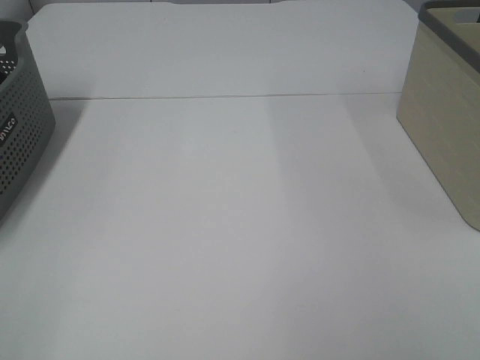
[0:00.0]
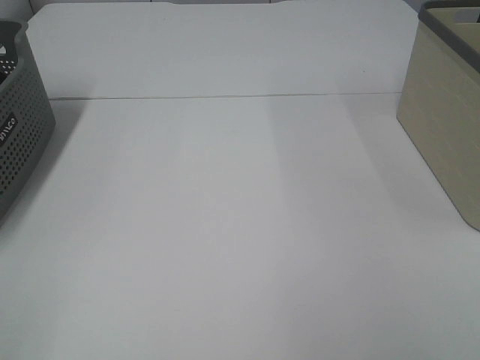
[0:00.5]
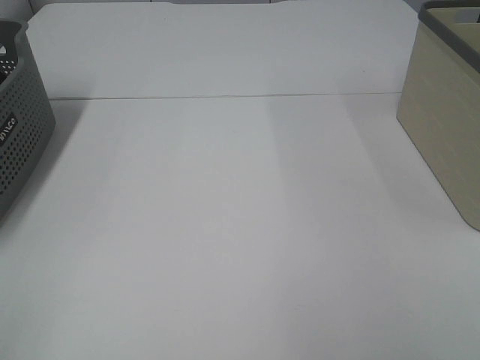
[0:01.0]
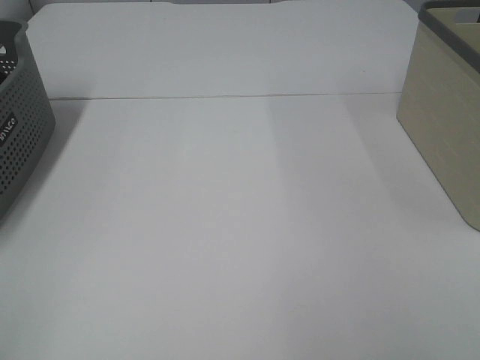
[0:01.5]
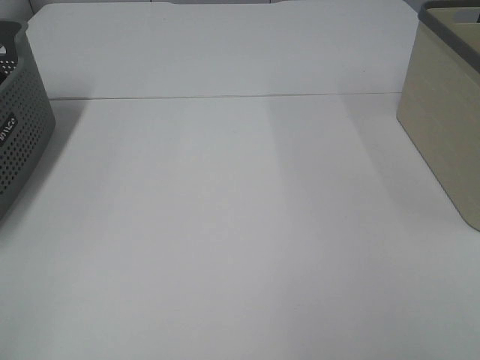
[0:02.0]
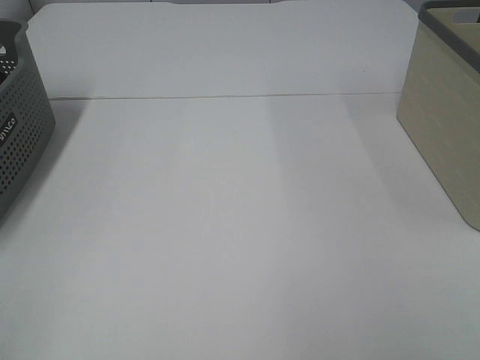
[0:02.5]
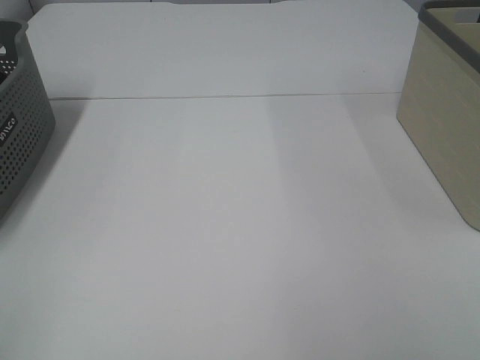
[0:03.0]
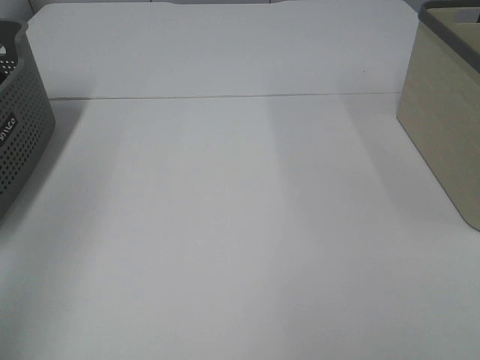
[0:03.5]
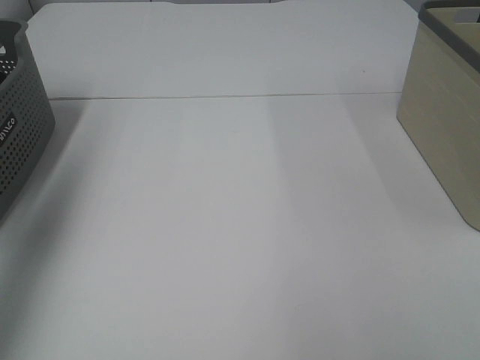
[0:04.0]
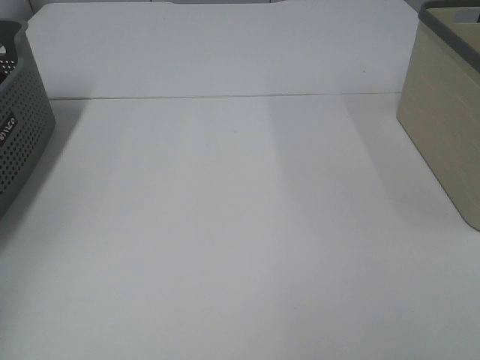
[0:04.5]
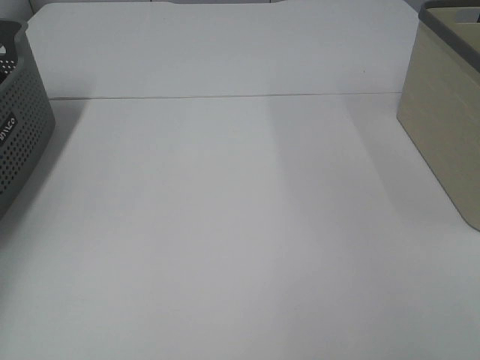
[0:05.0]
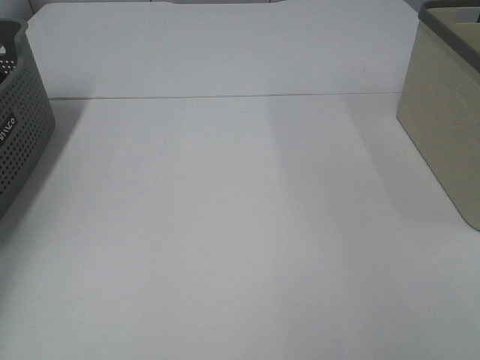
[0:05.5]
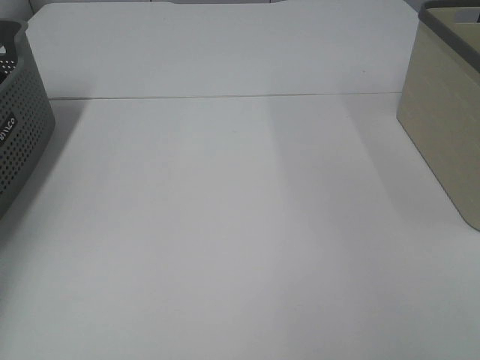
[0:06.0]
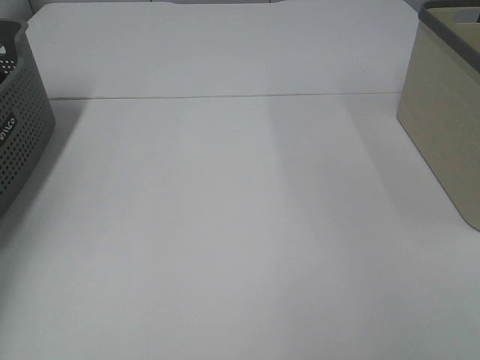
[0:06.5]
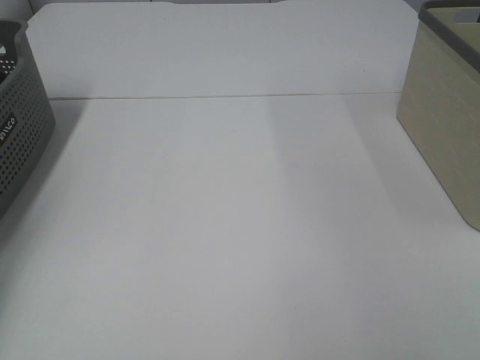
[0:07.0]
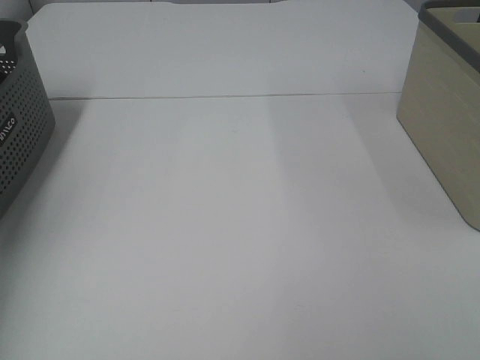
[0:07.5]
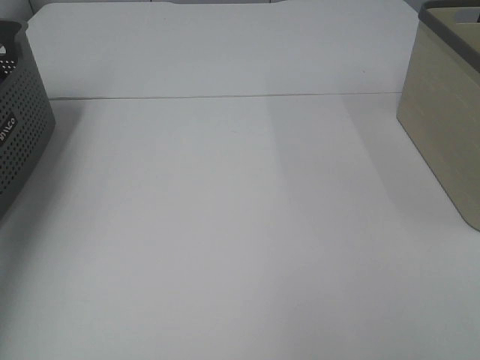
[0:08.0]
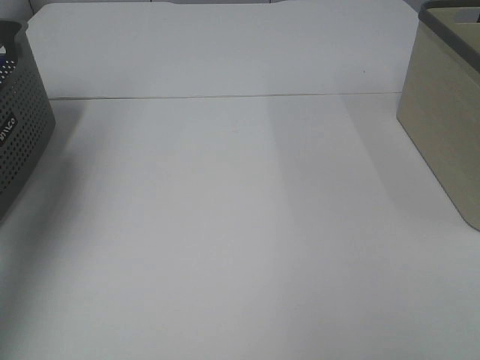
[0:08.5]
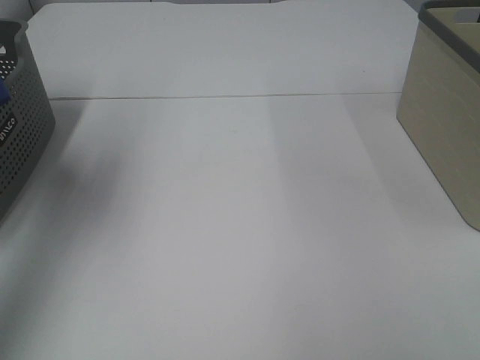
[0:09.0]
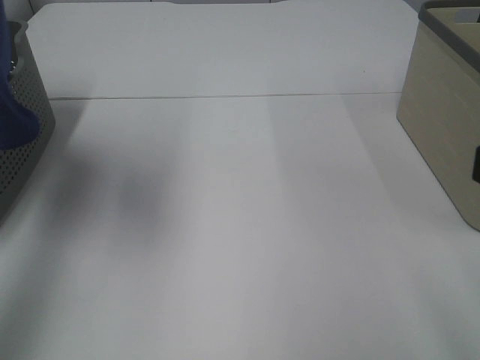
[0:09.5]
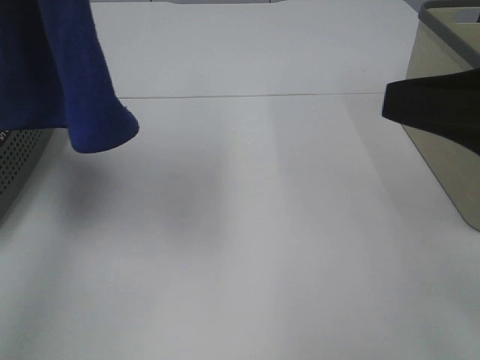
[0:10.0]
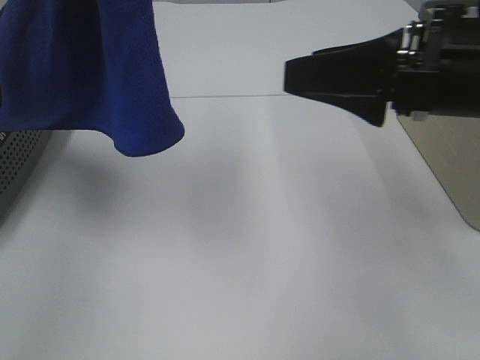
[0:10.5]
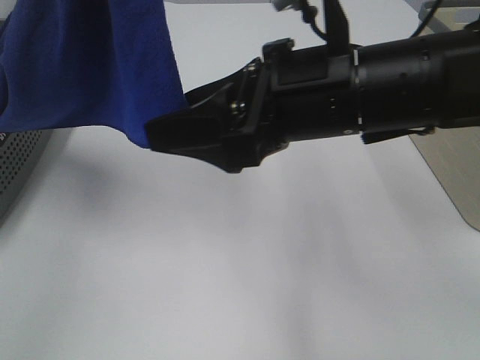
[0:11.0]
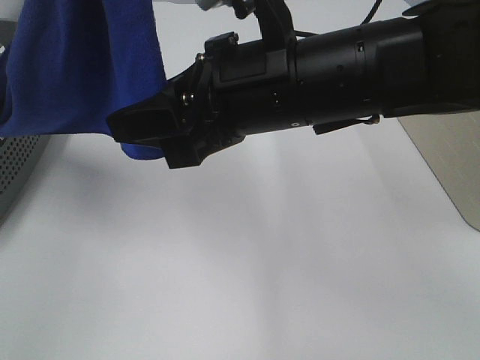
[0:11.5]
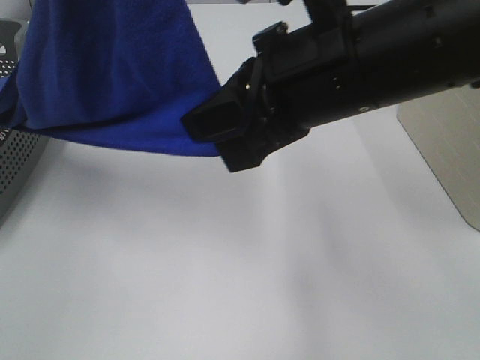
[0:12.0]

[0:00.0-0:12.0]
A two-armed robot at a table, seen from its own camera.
Task of the whole recording: Remove the towel and place it.
Step, 0:08.5 to 0:11.5: Right hand: grab a corner of the blue towel and straighten it.
0:00.0 to 0:02.0: Both grippers stay put.
0:02.0 to 0:04.0: The left gripper is displaced forward and upward by some 30 cm.
0:04.0 to 0:06.0: The left gripper is displaced downward and forward by some 30 cm, and closes up.
0:06.0 to 0:08.0: The left gripper travels upward by about 25 cm, and closes up.
0:08.0 to 0:10.0: The left gripper travels to the right and backward by some 20 cm. The right gripper heads forward and to the left, covering some 15 cm.
0:10.0 to 0:12.0: The right gripper shifts some 15 cm to the left and forward, and closes its fingers.

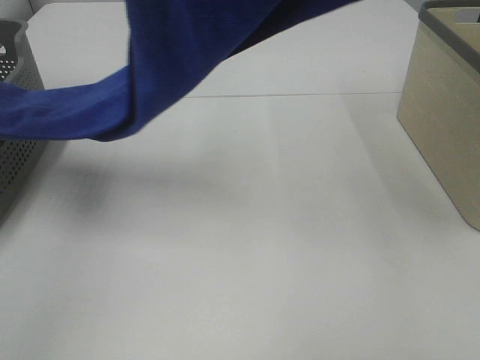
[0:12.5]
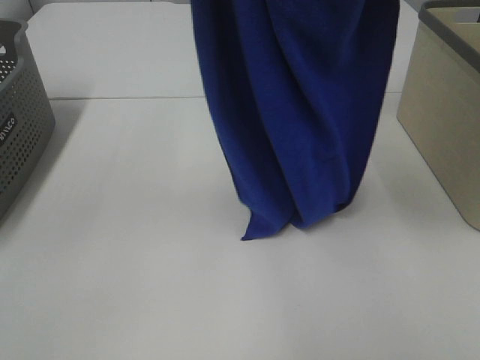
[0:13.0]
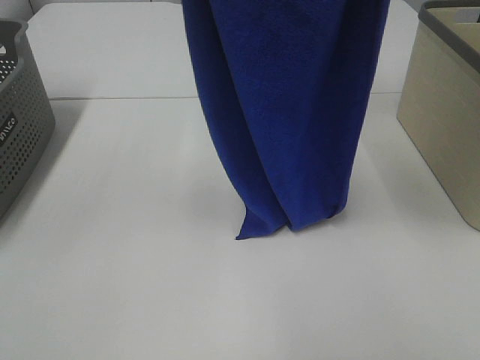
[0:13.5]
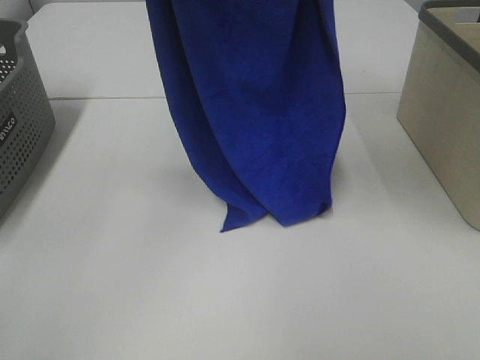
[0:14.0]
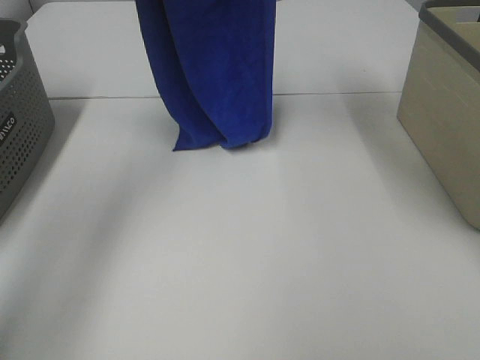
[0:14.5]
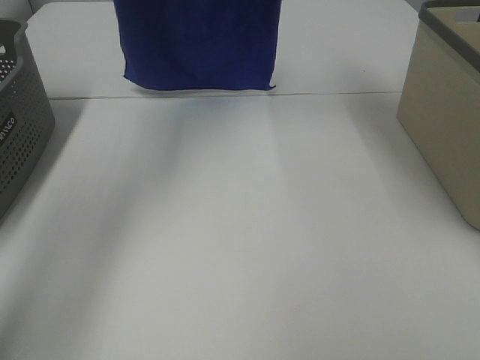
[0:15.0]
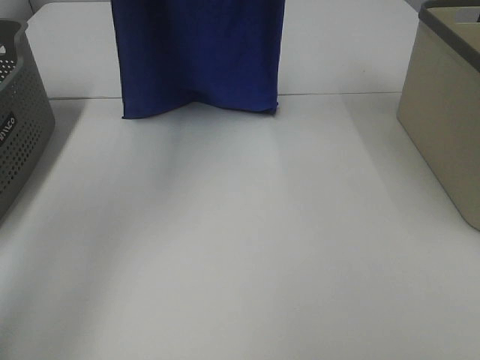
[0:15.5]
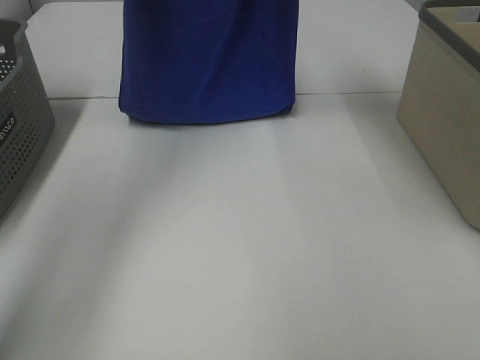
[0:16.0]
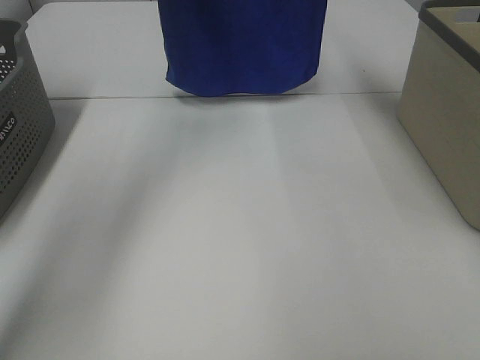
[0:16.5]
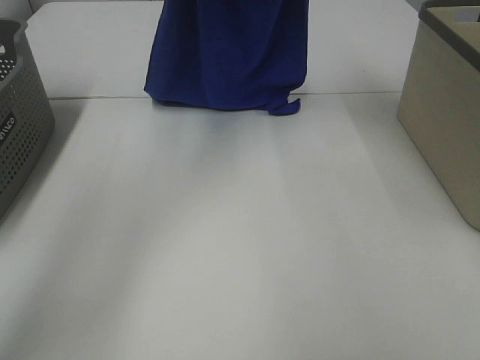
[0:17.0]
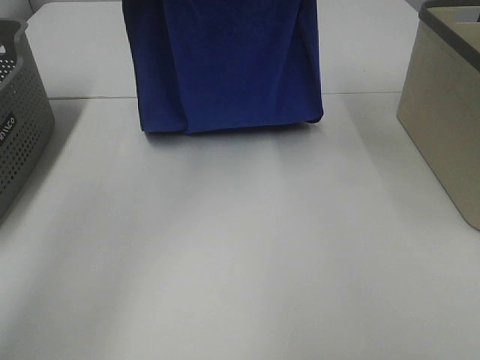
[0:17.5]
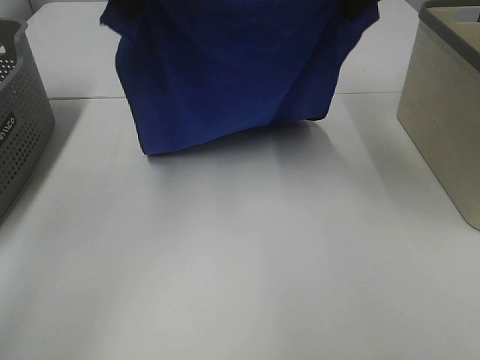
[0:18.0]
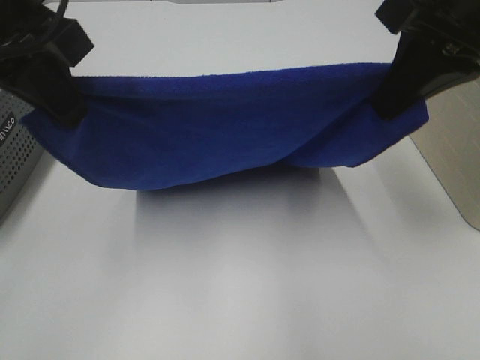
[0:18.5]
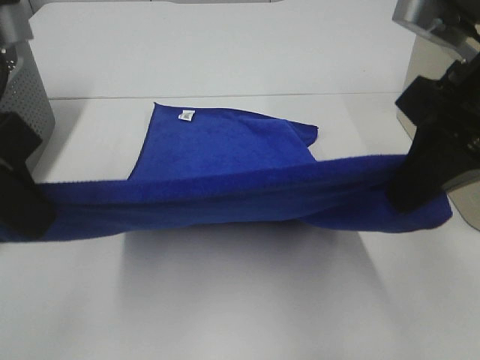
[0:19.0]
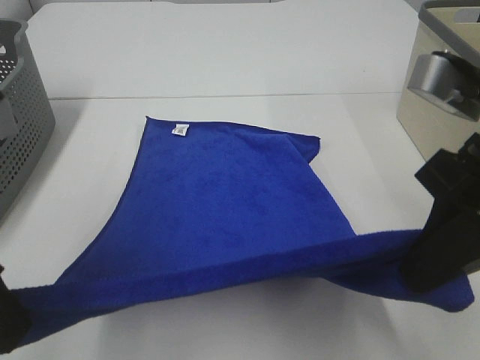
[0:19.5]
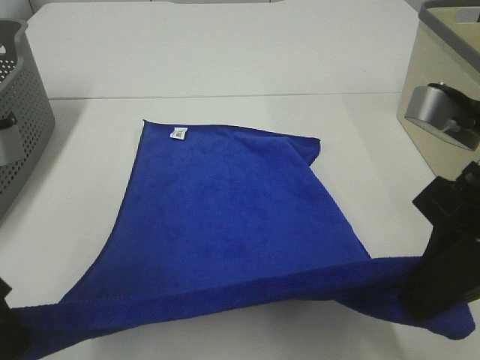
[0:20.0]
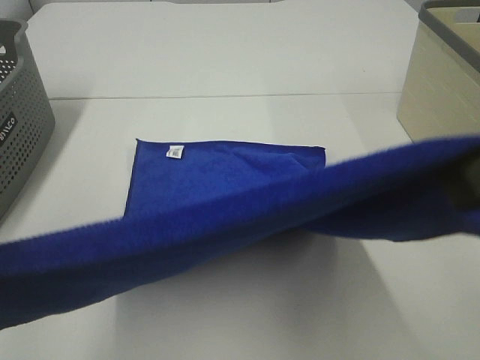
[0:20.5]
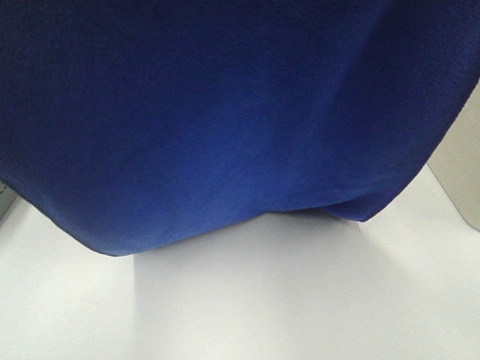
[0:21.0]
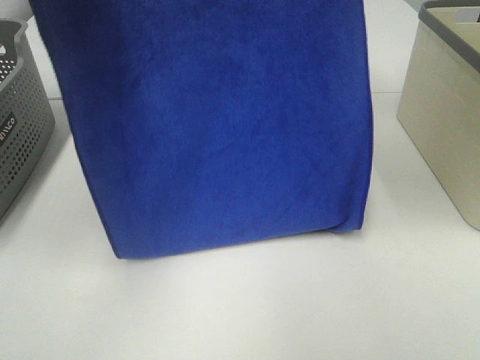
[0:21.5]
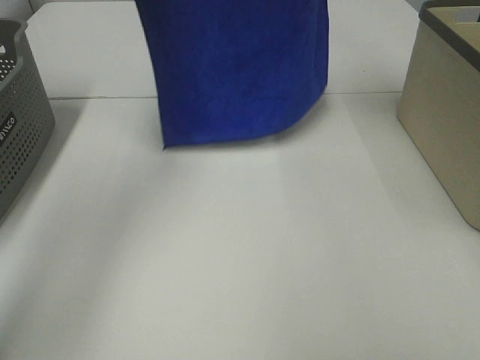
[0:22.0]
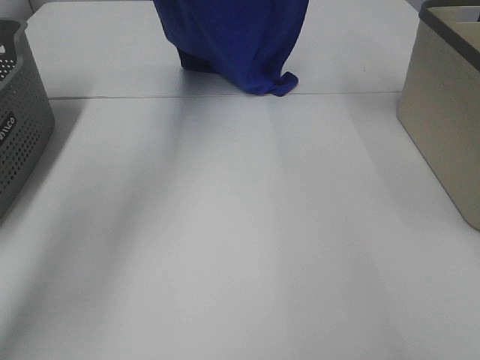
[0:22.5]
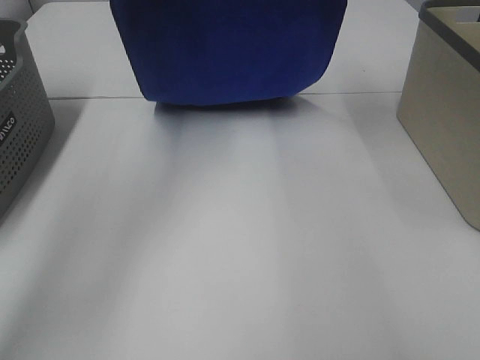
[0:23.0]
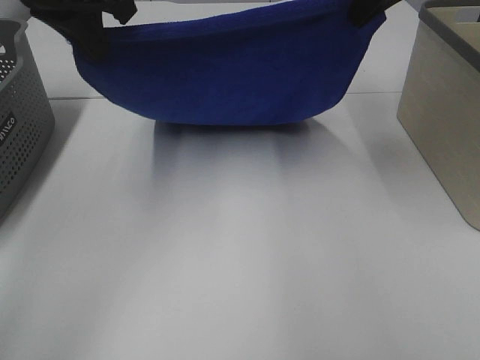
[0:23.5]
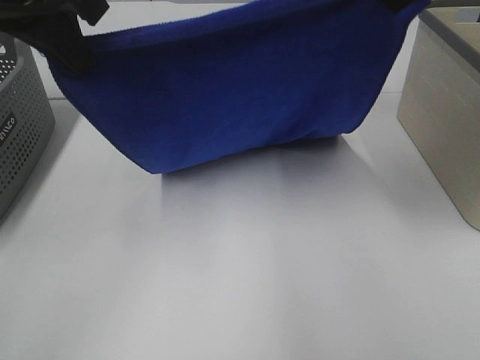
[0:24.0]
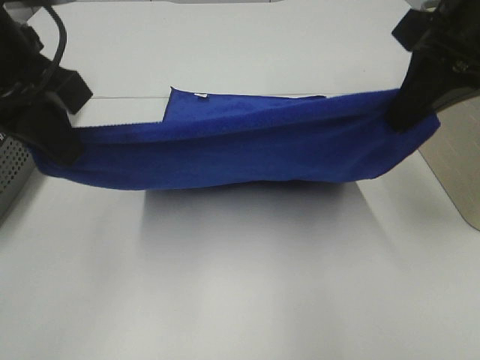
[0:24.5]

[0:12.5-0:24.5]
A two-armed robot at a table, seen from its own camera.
Task of the whole recording: Remove the towel and place it.
Step, 0:12.5 to 0:22.0: Right hand: spread the blue towel flat on the table.
Step, 0:12.5 to 0:22.5: Left hand: spread the blue towel flat on the table.
0:12.5 to 0:14.5: The two grippers go approximately 20 cm forward.
0:14.5 to 0:16.5: The right gripper shifts by roughly 5 cm.
0:16.5 to 0:18.5: Both grippers travel together backward and downward, some 25 cm.
0:18.5 to 0:20.5: The grippers both shift backward by about 15 cm.
0:20.5 to 0:22.5: The grippers both shift forward by about 40 cm.
0:22.5 to 0:24.5: The grippers both shift backward and downward by some 25 cm.

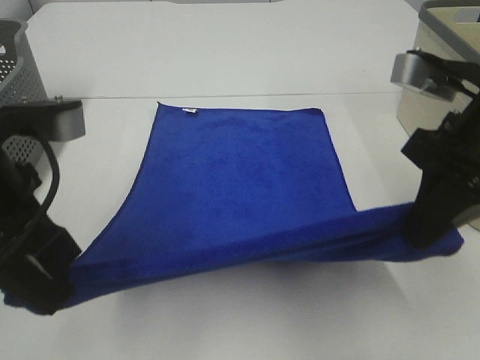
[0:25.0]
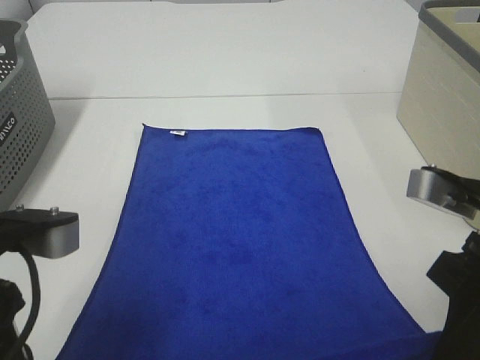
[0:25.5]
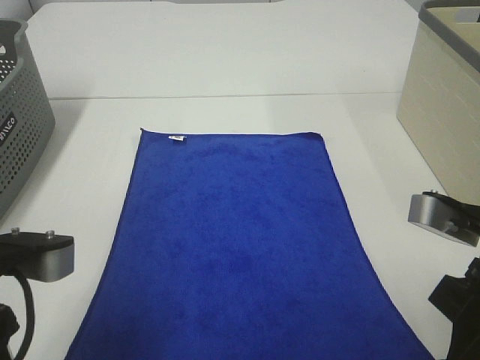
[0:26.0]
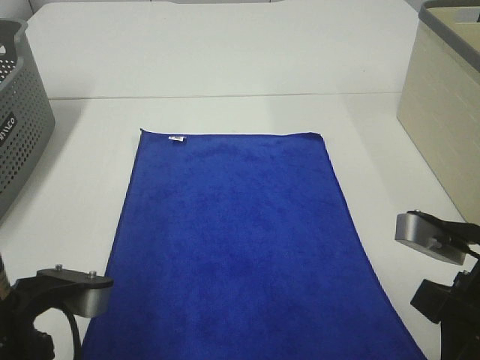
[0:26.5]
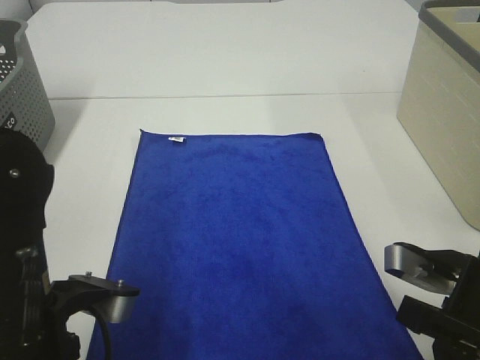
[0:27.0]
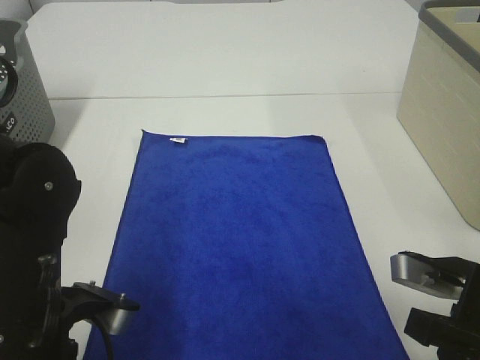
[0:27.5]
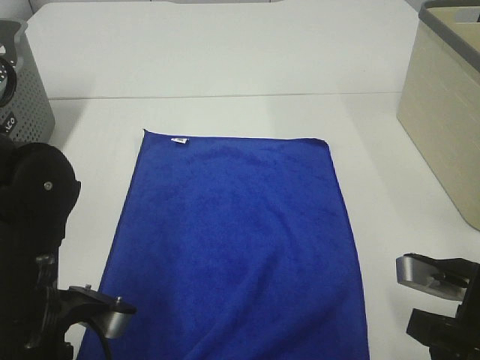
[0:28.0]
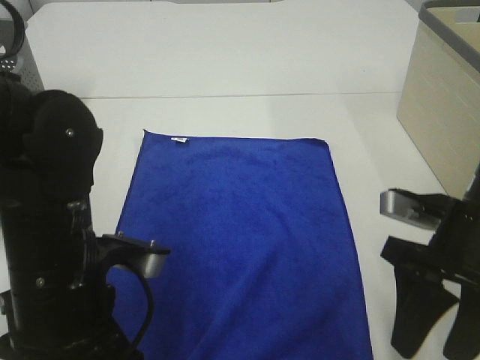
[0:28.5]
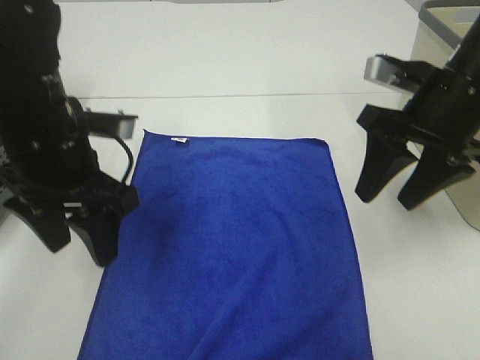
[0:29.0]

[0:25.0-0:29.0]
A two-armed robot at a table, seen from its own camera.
Task of the whole recording: Remove the towel and place it.
0:25.0 to 0:27.0: The left gripper heads downward, covering some 10 cm, while the right gripper heads downward and backward, covering roughly 15 cm.
0:27.0 to 0:29.0: Both grippers travel together forward and upward, roughly 15 cm. The right gripper opens its fingers; the left gripper opens up.
